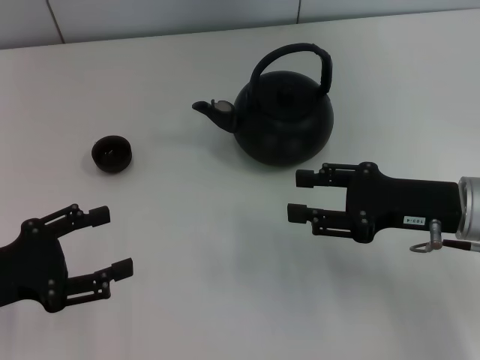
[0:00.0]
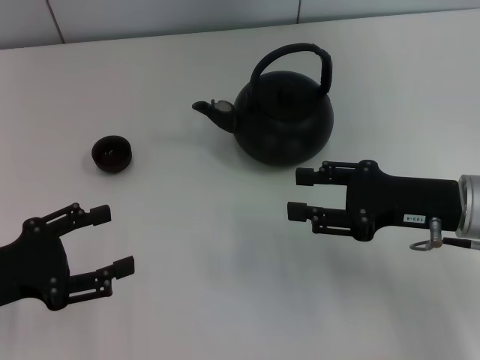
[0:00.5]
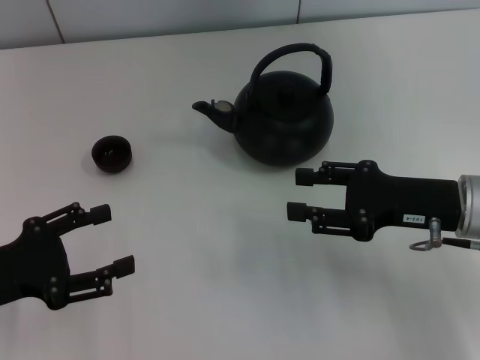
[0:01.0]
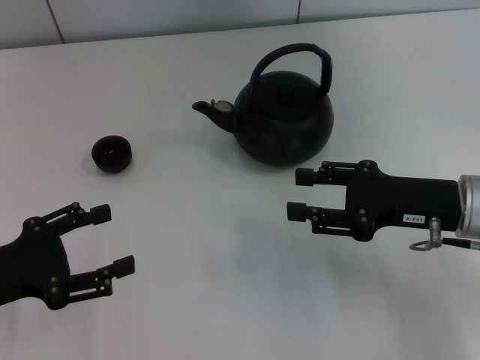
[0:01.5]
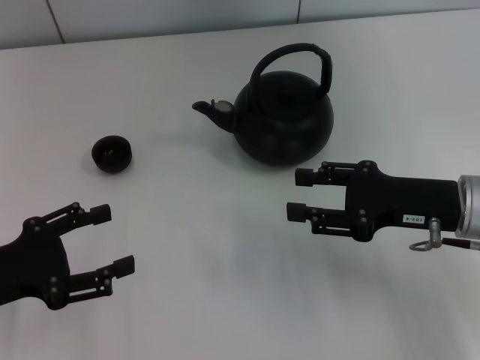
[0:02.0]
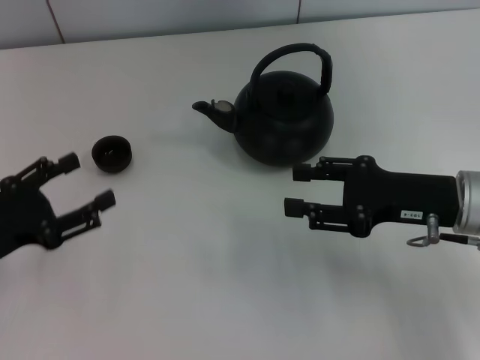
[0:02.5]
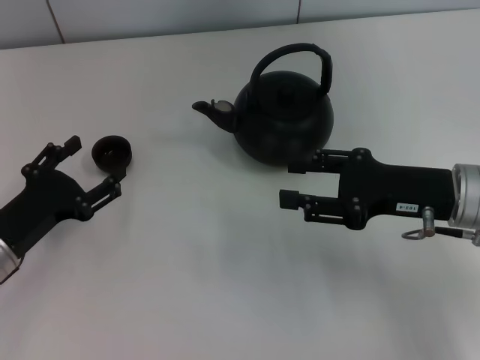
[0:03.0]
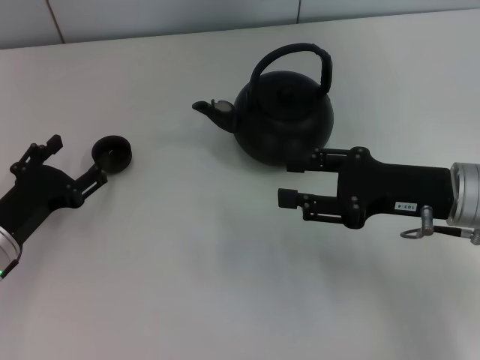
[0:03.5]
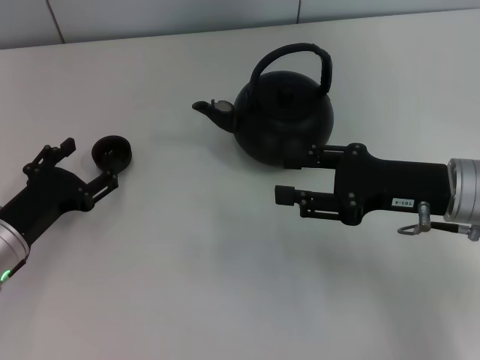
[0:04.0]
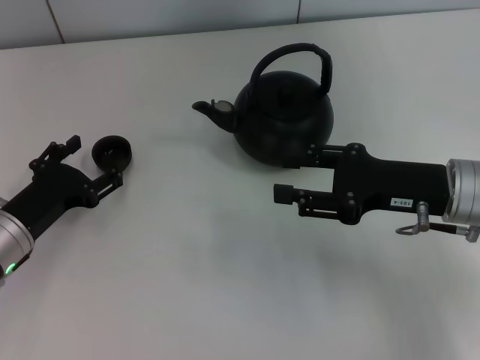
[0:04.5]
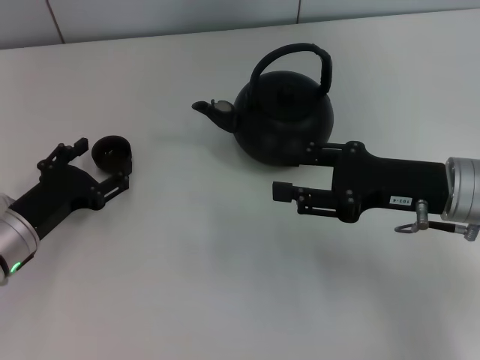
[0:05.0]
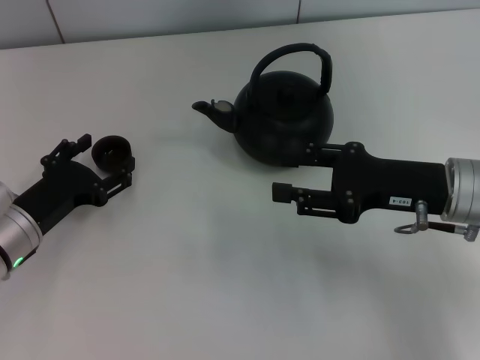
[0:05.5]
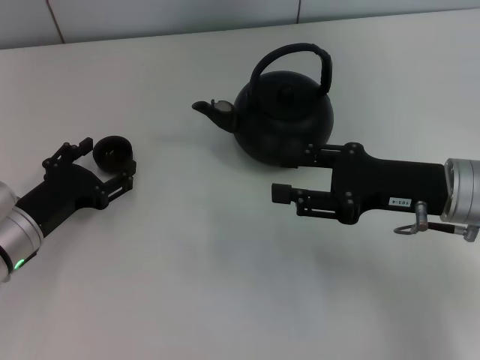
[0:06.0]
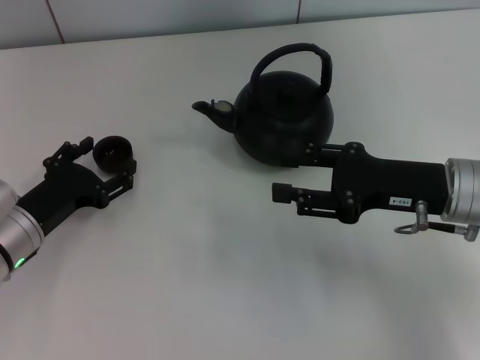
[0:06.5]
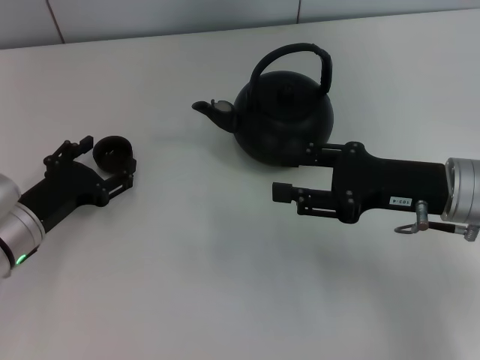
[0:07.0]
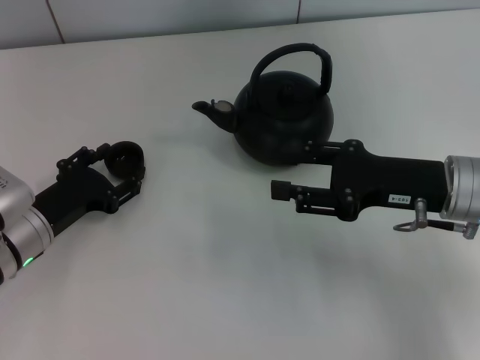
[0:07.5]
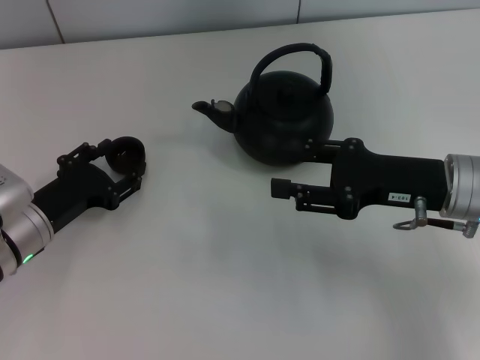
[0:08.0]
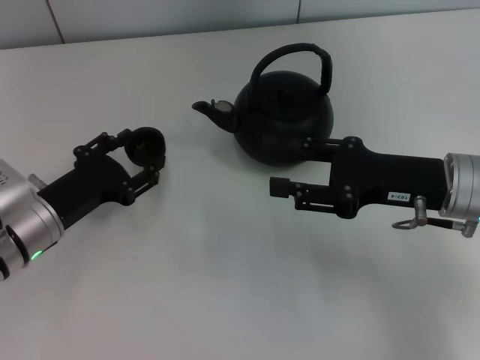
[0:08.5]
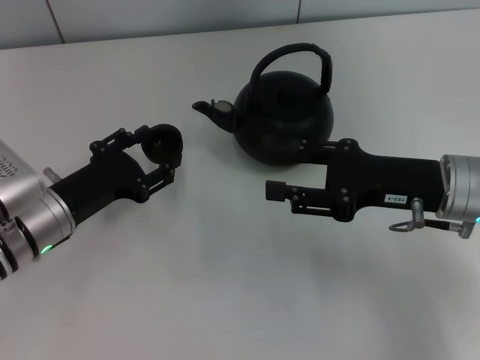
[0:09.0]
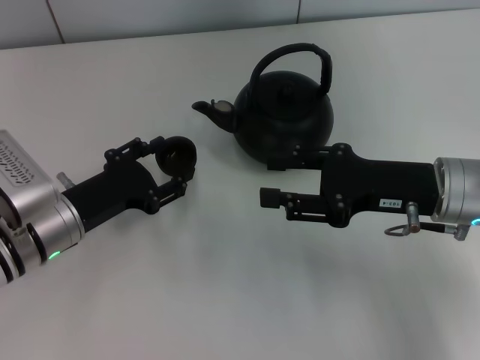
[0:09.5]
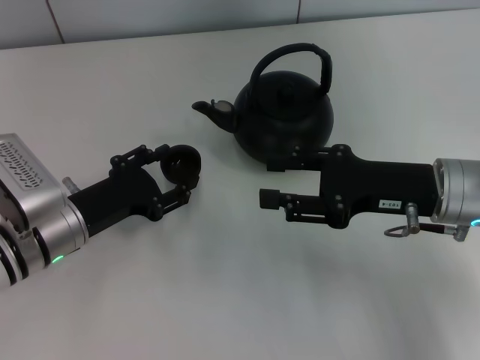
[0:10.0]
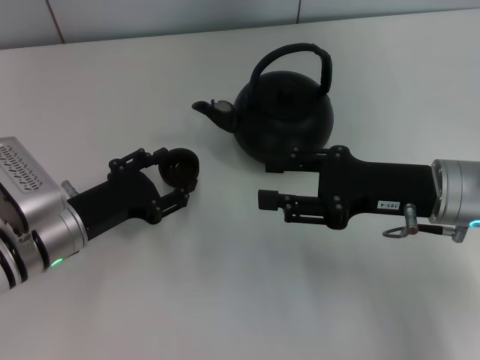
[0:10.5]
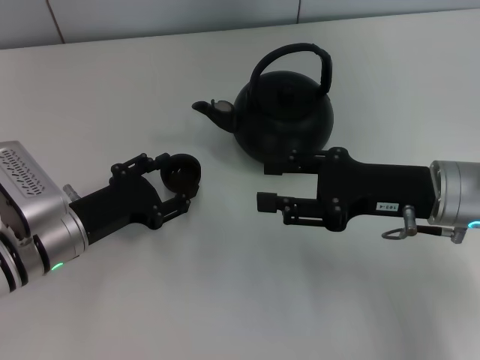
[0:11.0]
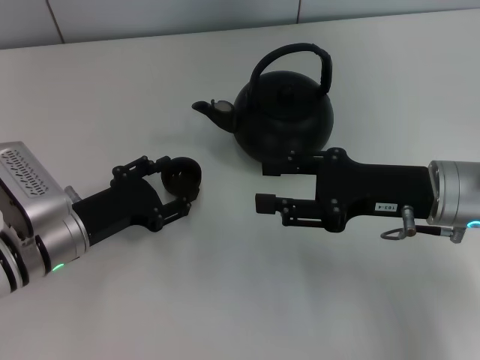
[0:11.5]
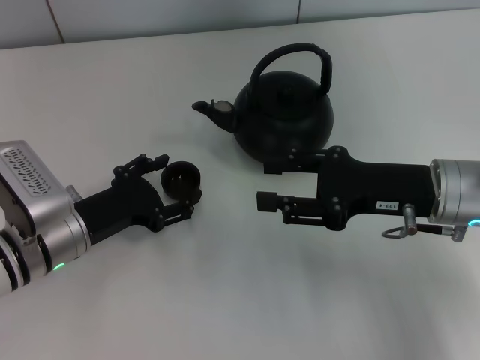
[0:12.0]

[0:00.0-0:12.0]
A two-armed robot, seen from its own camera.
Task of the whole recording: Grasp the handle of the teapot with one hand and pour tea into the teacup.
Step, 0:00.0 to 0:08.5: Pick up the teacup with the left gripper.
0:00.0 to 0:02.0: Both grippers stay about where they are.
0:02.0 to 0:04.0: The left gripper moves downward and forward, roughly 10 cm.
0:04.0 to 0:06.0: The grippers make only small movements.
0:06.0 to 0:08.0: The left gripper closes.
0:08.0 to 0:10.0: The grippers stay close to where they were, moving slightly.
0:10.0 to 0:12.0: The left gripper opens up.

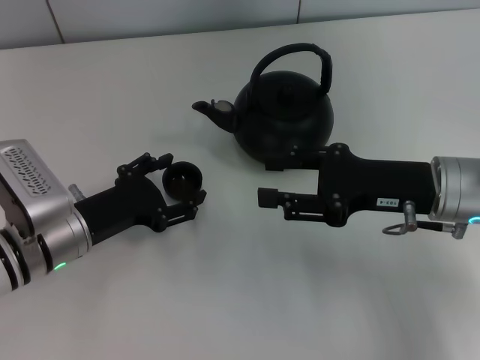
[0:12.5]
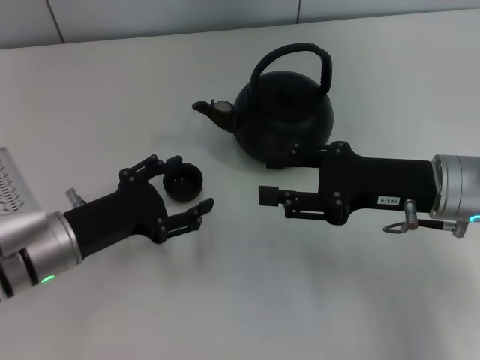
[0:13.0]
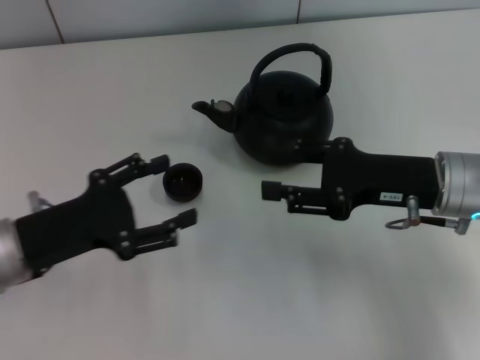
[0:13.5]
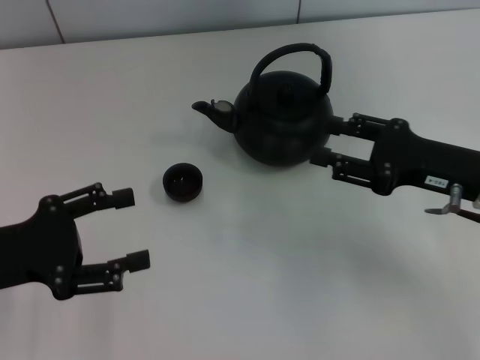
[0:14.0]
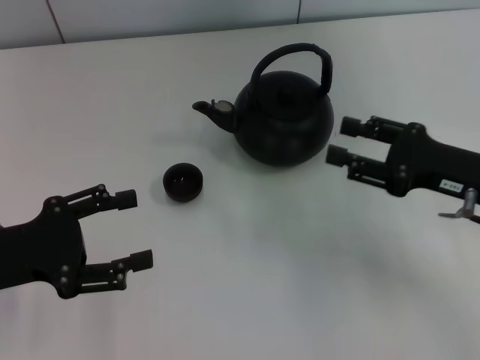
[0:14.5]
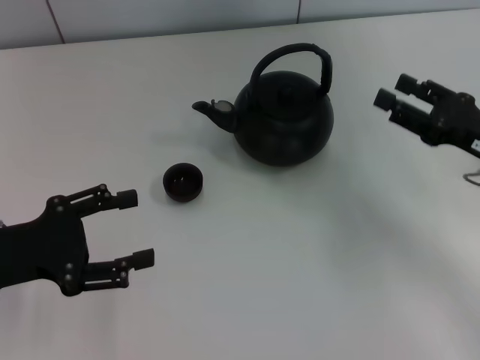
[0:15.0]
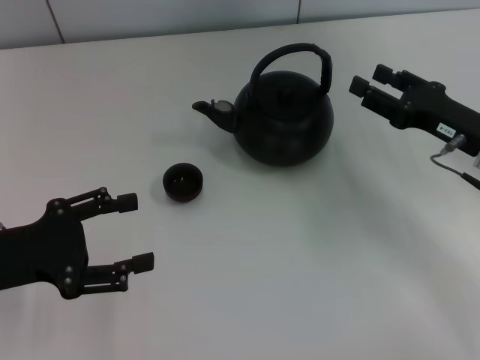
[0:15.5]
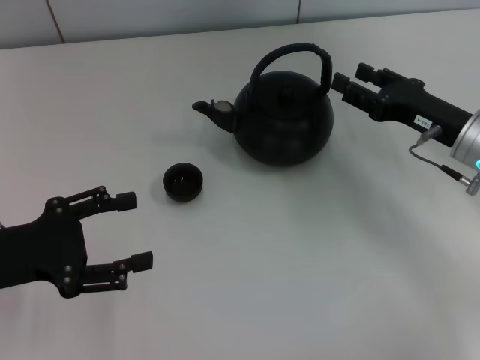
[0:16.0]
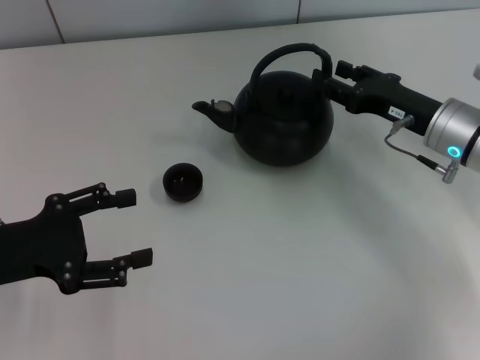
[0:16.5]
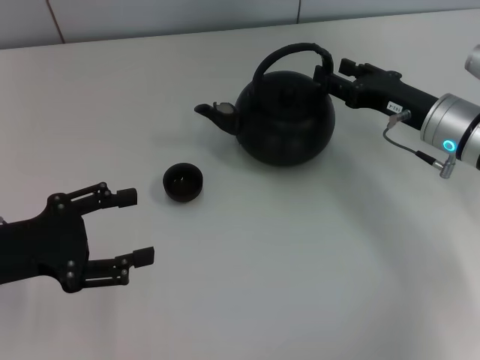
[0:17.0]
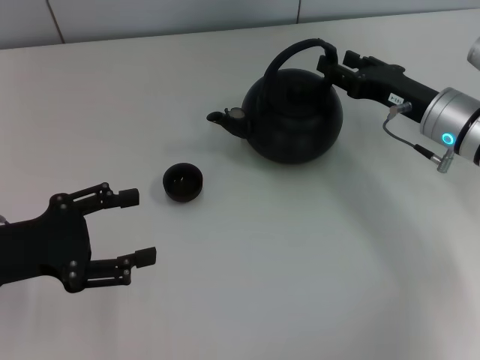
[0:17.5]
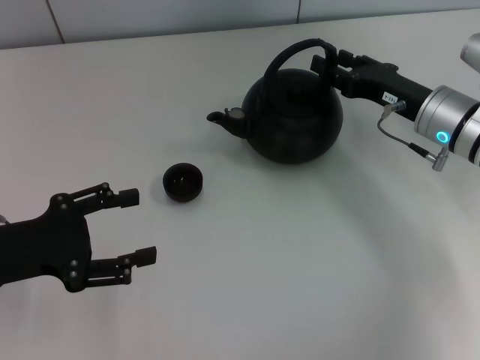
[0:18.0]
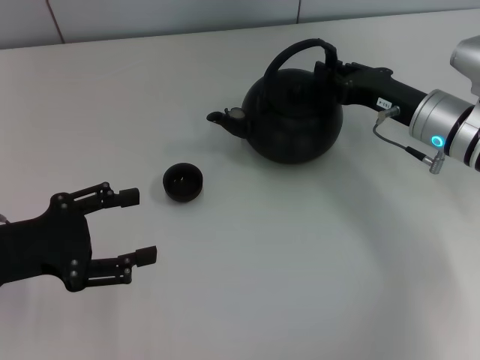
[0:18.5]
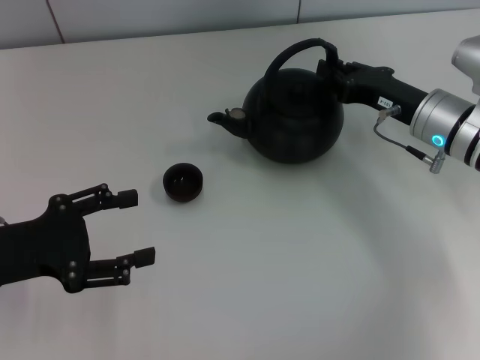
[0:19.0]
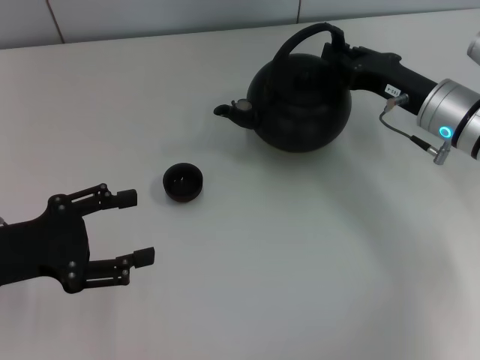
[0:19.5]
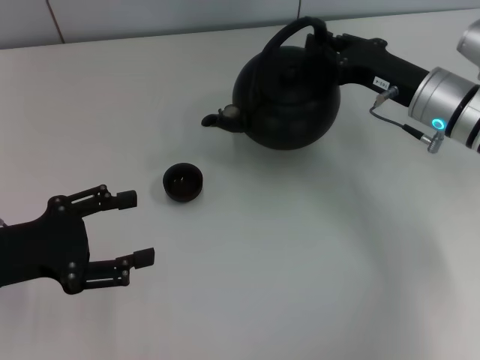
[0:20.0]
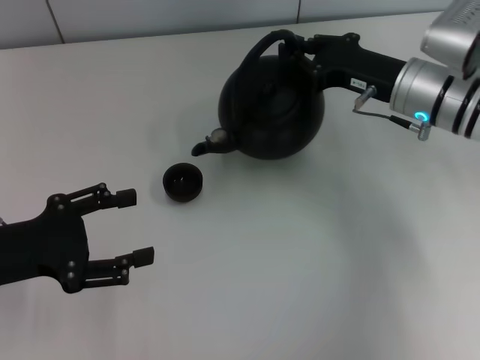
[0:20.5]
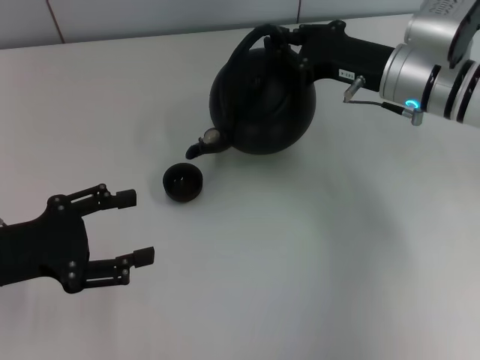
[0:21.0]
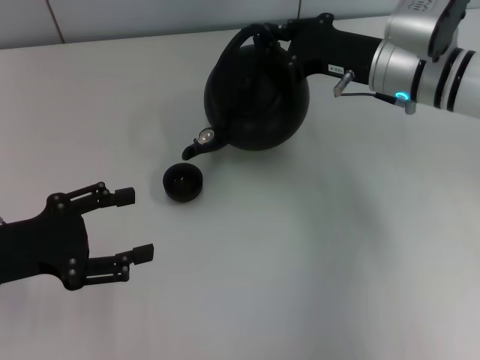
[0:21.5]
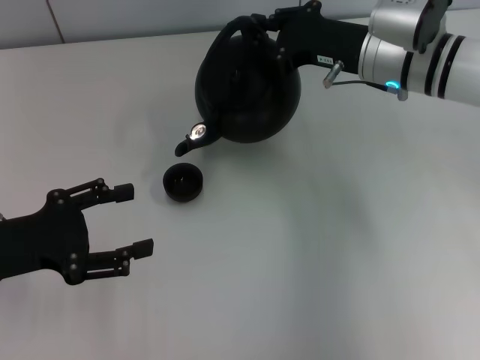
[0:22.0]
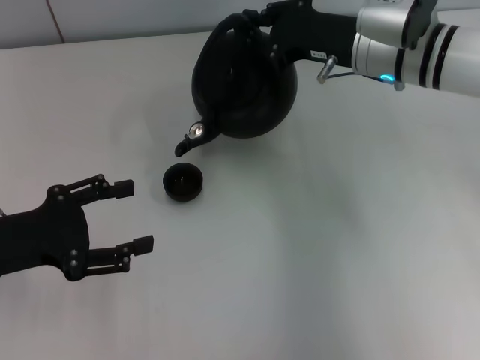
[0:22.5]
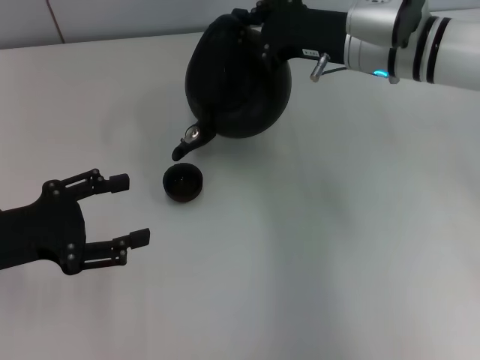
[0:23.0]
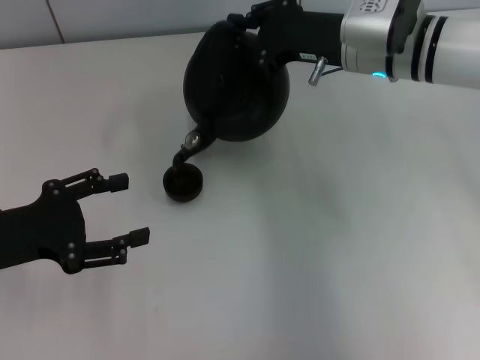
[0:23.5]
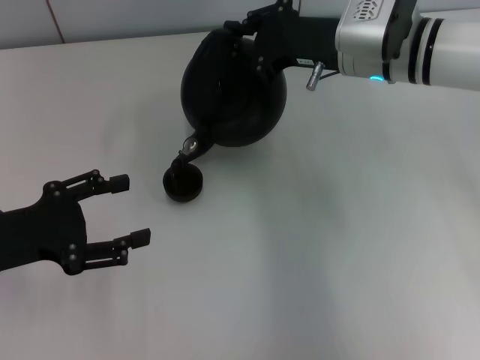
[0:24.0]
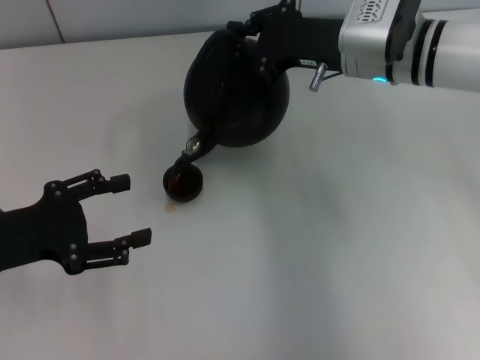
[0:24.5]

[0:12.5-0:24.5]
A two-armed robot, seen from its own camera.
Task of the whole recording: Grasp the handle of the teapot with one hand and pour tea into the teacup.
Step, 0:13.5 to 0:19.5: Pick up the teapot with the right gripper.
0:12.5 to 0:14.5: The left gripper shifts approximately 10 cm to the left and upward, while the right gripper is displaced to the right by about 5 cm.
0:14.5 to 0:16.5: The right gripper heads forward, covering some 10 cm.
0:16.5 to 0:18.5: The grippers make only small movements.
0:18.5 to 0:20.5: The right gripper closes.
0:20.5 to 0:22.5: The right gripper ends up approximately 5 cm from where it was.
0:22.5 to 0:24.5: The grippers move only a little.

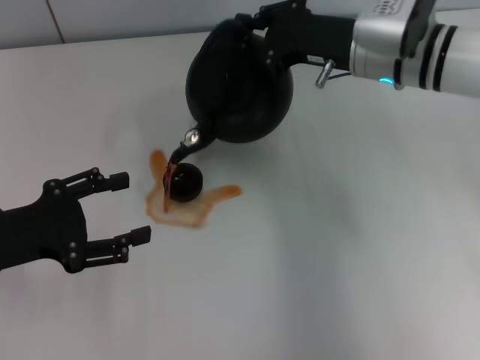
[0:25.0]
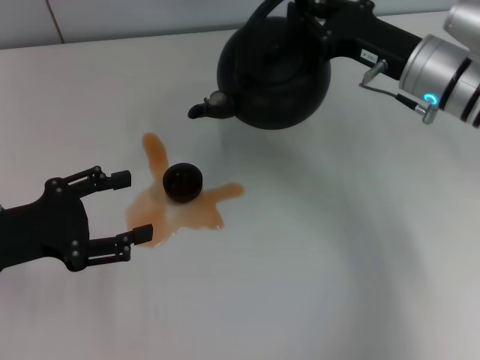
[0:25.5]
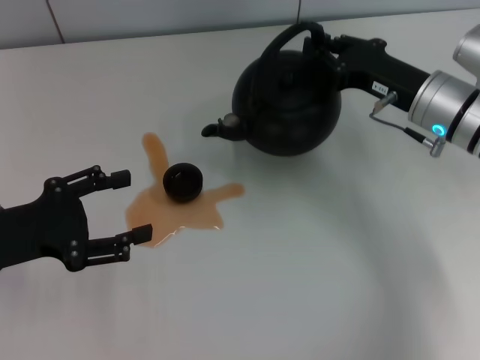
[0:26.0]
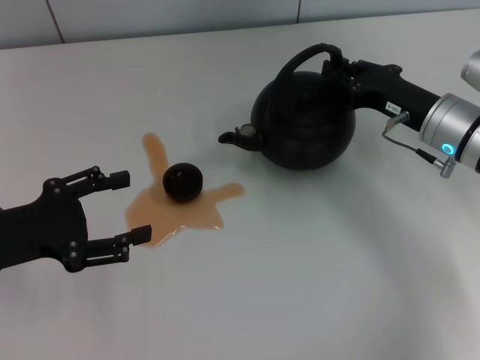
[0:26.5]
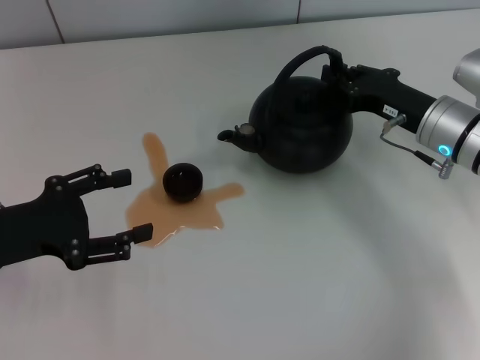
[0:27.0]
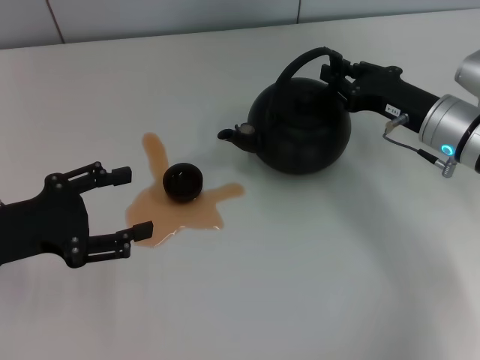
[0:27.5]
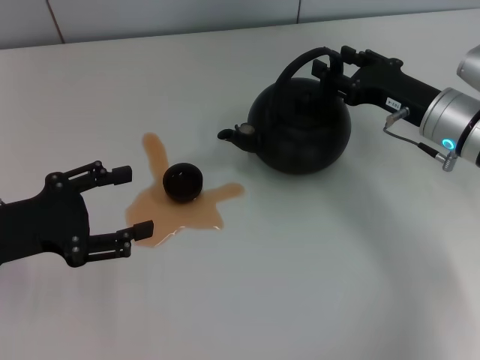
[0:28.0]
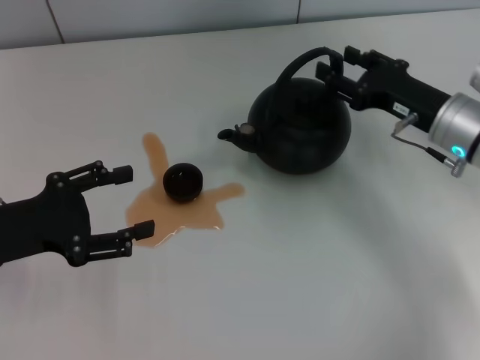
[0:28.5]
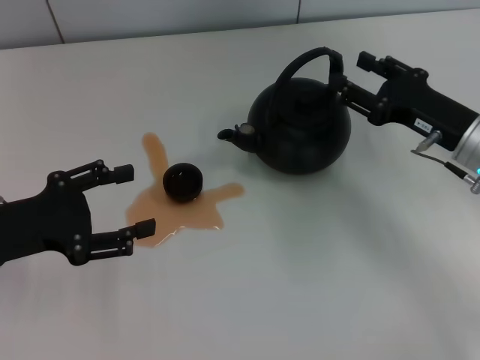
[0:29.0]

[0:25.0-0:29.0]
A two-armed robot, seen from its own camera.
Task of the whole recording: Grasp the handle of the teapot with one hand and pour tea into the teacup.
Step, 0:25.5 to 0:28.5: Put down the teapot with the right gripper.
0:25.0 to 0:27.0: The right gripper travels downward, to the right and backward by some 10 cm.
0:27.0 to 0:29.0: The right gripper opens up.
